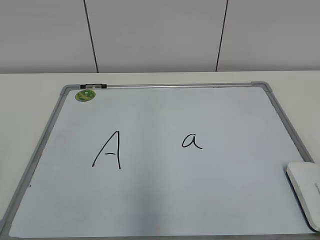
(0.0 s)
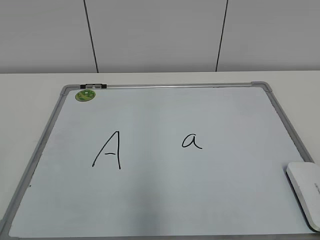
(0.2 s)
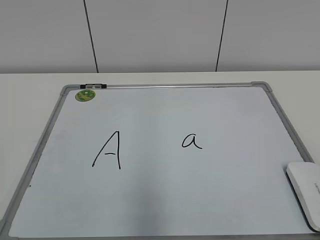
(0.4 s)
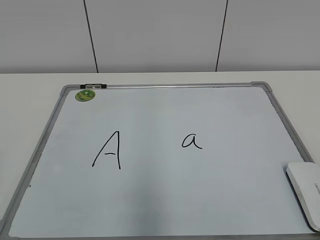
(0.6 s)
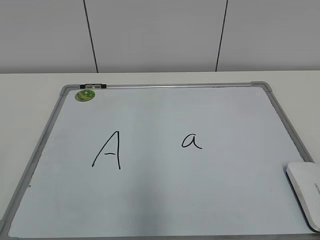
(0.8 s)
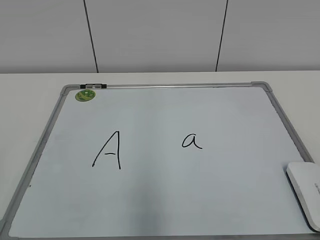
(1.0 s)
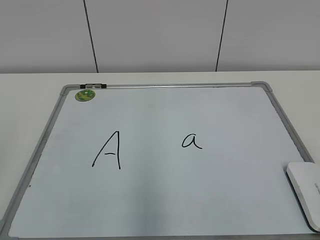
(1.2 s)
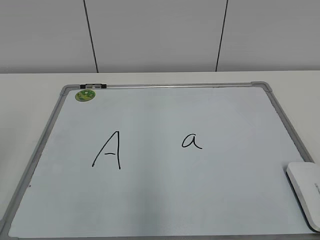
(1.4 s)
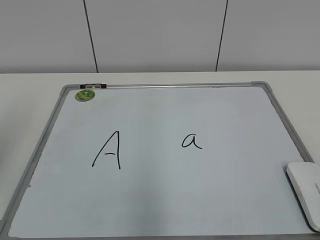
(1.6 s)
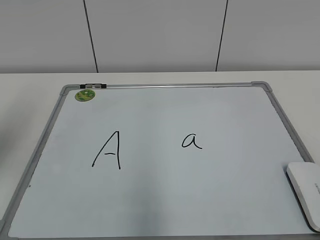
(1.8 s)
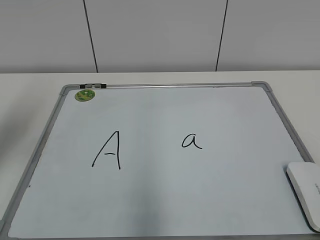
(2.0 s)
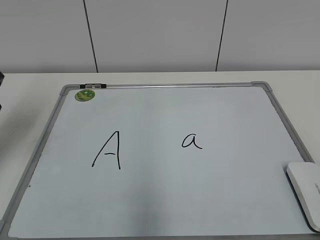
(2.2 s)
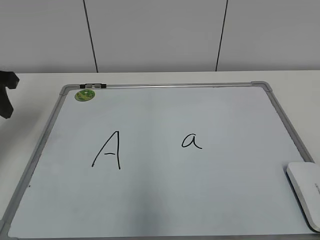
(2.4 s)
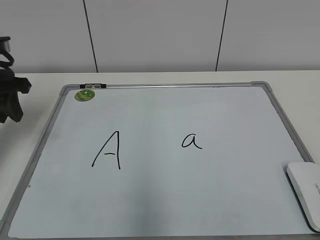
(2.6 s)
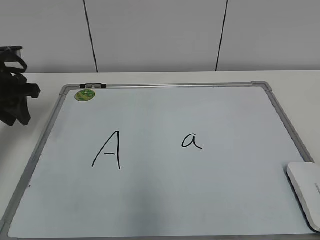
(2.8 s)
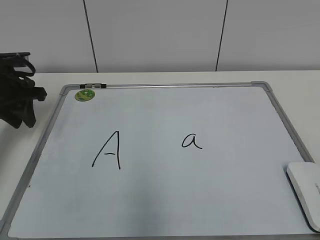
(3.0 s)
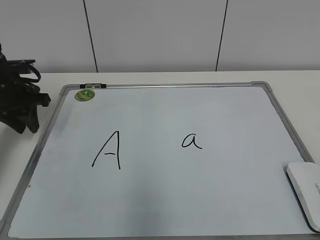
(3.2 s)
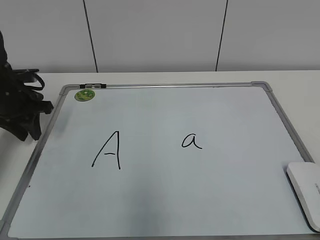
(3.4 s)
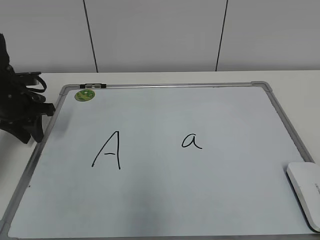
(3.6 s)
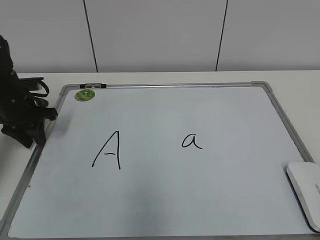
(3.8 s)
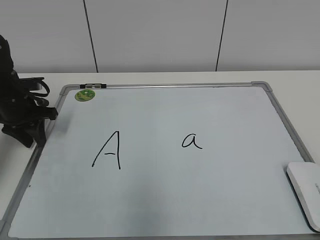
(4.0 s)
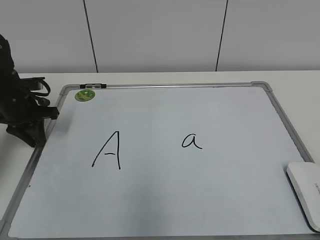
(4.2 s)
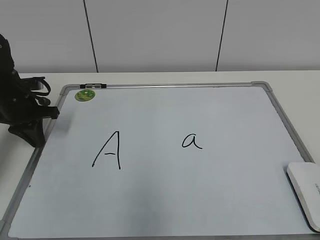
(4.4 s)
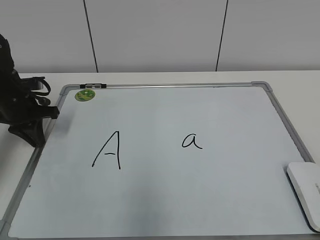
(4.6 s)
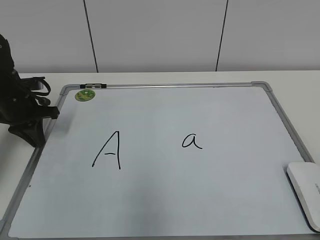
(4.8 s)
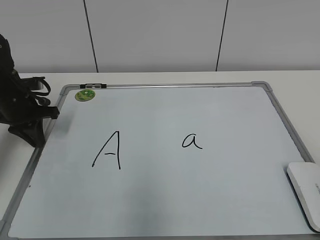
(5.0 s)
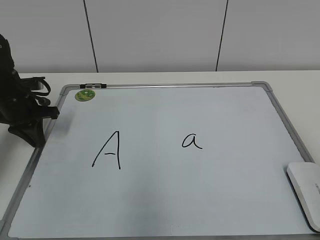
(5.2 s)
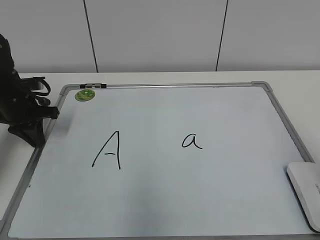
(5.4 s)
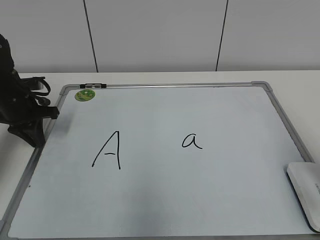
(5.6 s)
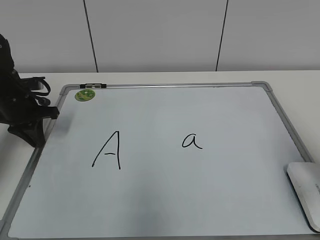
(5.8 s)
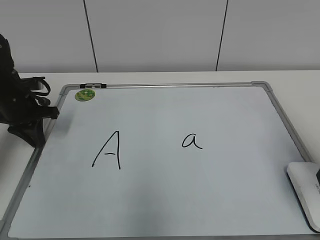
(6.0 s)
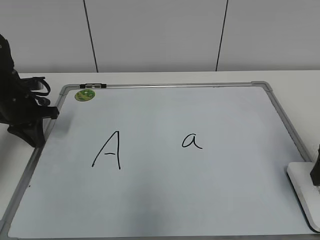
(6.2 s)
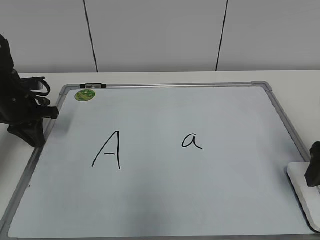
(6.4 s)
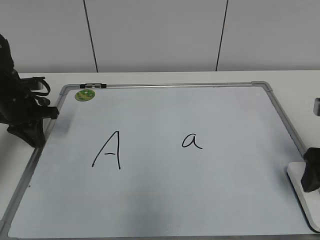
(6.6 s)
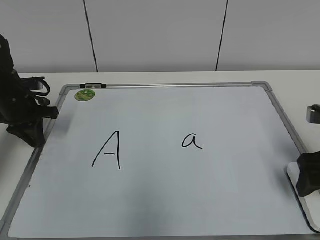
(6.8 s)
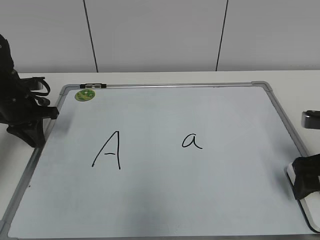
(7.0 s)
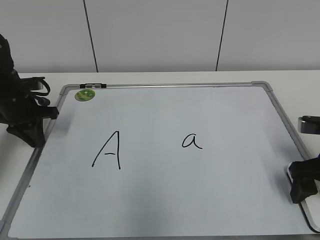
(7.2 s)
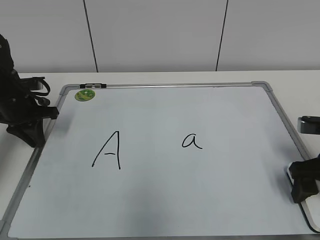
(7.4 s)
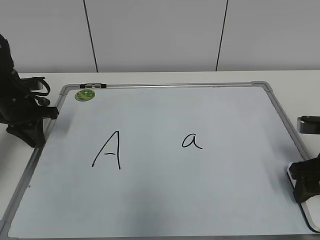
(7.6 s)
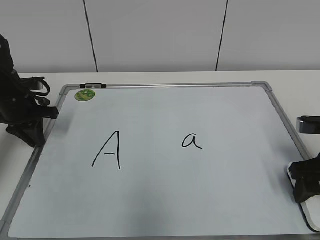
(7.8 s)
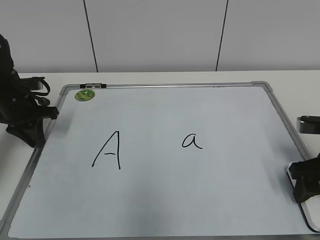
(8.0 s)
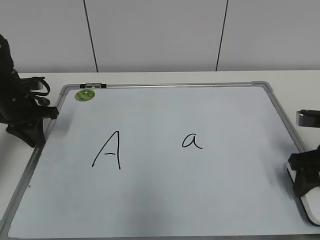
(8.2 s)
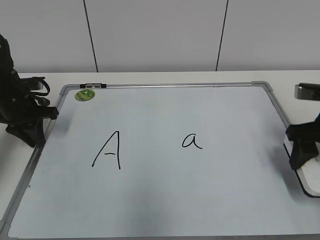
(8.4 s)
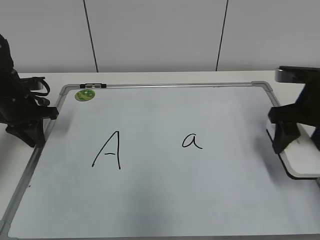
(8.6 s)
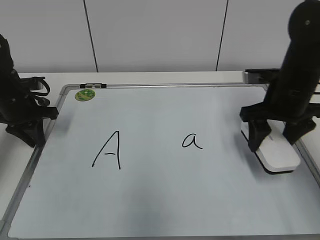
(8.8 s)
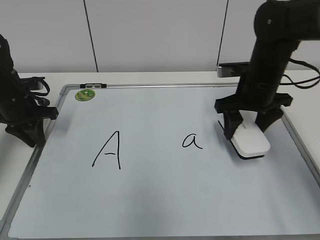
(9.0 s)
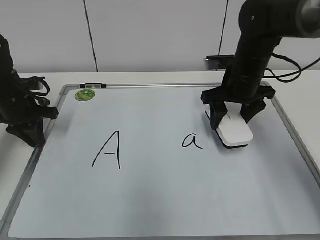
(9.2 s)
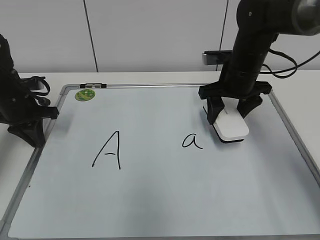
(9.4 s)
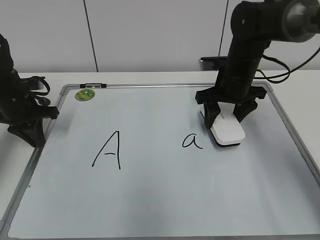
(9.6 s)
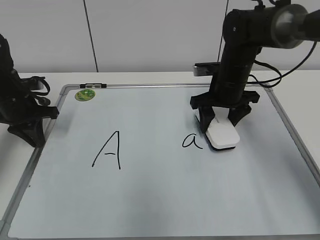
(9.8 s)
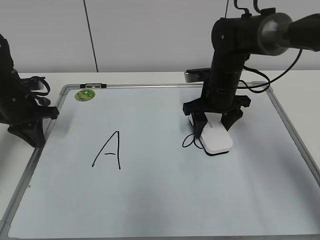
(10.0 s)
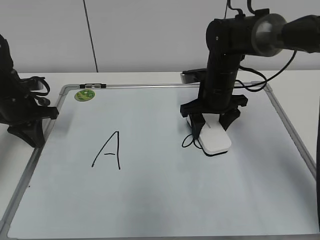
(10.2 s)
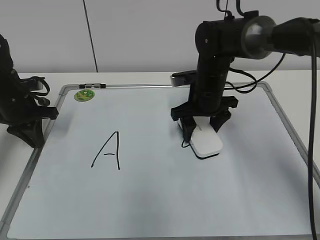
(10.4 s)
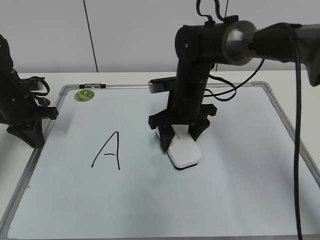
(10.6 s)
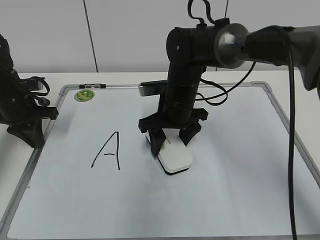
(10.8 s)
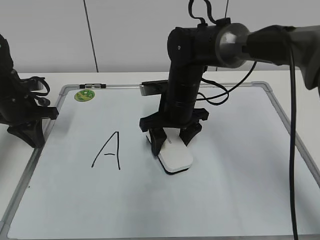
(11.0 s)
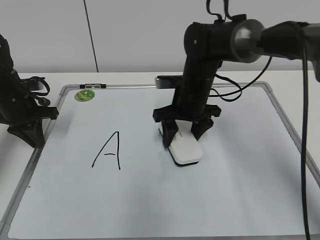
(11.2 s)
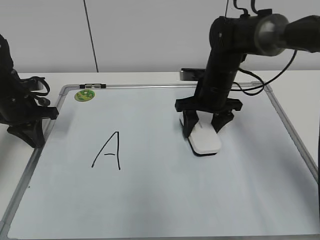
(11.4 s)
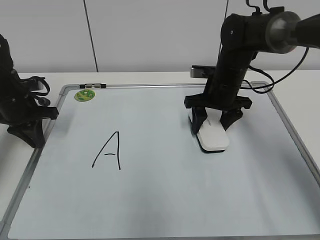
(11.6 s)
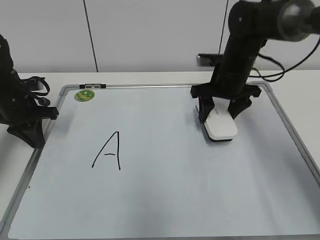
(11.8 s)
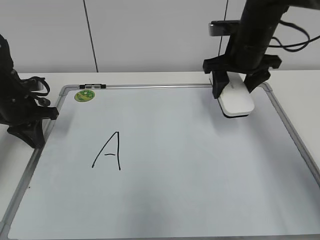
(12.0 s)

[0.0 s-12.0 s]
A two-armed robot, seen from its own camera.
Task of the whole recording: pick up the eraser on the blackboard and erase the letter "a".
Step, 0.0 to 5.2 s: Hold the drawing board steady with your left hand.
Step, 5.4 to 7.4 s: Grab the eraser with your right hand.
Step, 7.6 to 11.4 s: Erase the letter a with your right hand.
1.6 to 3.0 s: The left gripper moves forward and downward, some 25 cm.
3.0 to 4.4 s: The left gripper is displaced downward by about 5 cm, and closes its fingers.
4.4 to 6.0 s: The right gripper heads forward, covering about 20 cm, and opens up.
6.0 to 7.6 s: The right gripper travels downward and forward by some 10 cm, and closes.
7.6 to 9.0 s: The right gripper goes roughly 15 cm forward and to the left.
9.0 to 10.4 s: The right gripper heads to the left, covering roughly 10 cm.
10.4 to 12.0 s: The right gripper travels upward and to the right by roughly 10 cm.

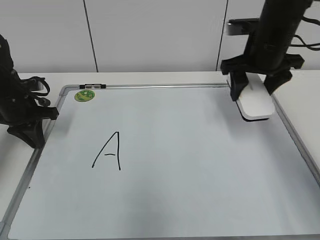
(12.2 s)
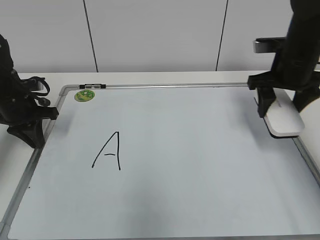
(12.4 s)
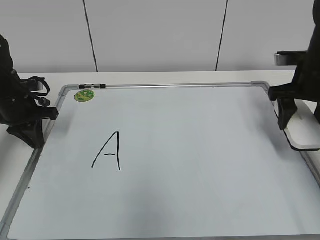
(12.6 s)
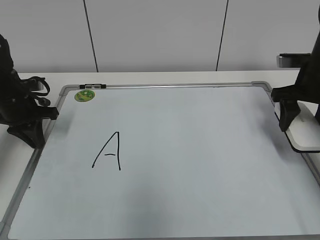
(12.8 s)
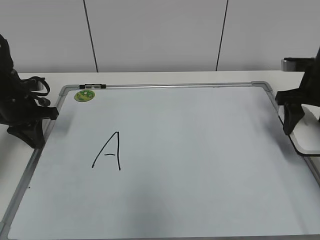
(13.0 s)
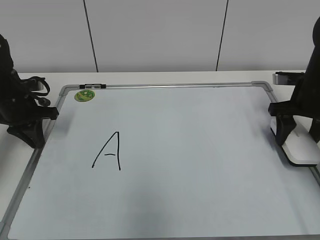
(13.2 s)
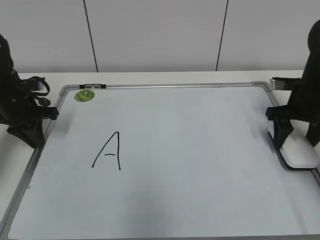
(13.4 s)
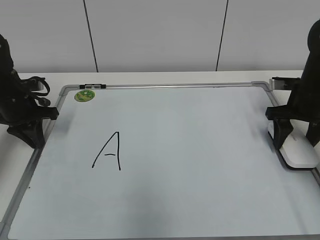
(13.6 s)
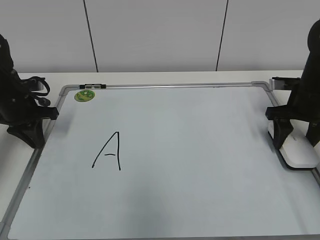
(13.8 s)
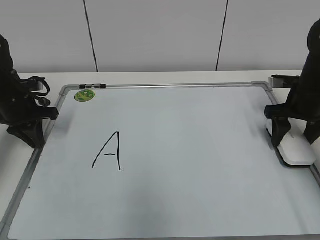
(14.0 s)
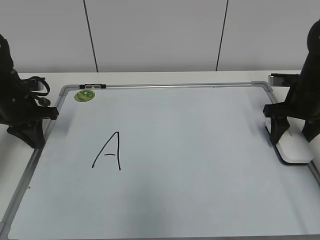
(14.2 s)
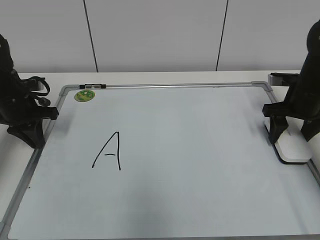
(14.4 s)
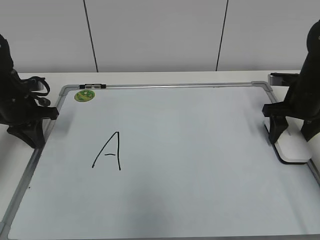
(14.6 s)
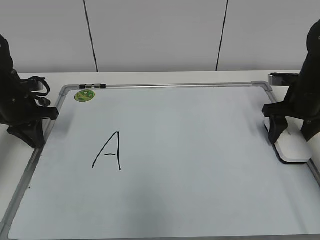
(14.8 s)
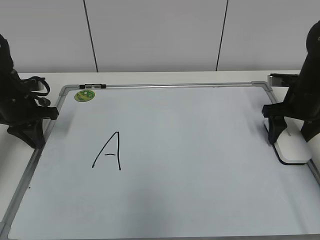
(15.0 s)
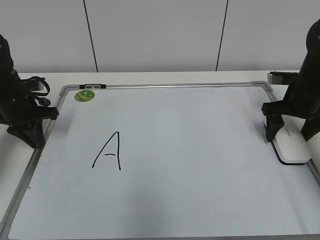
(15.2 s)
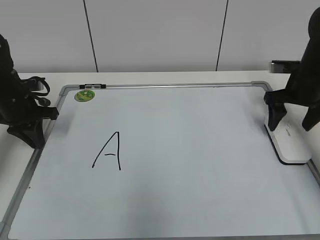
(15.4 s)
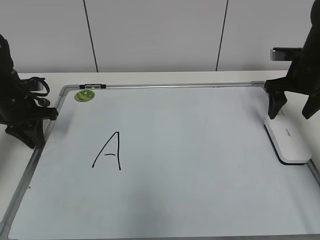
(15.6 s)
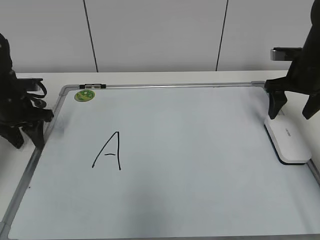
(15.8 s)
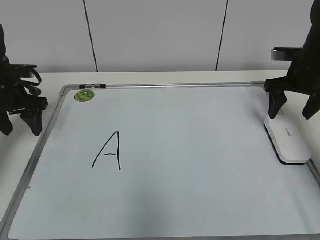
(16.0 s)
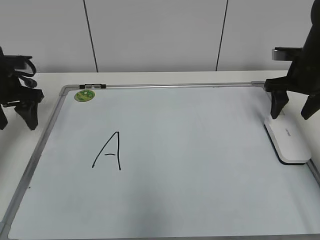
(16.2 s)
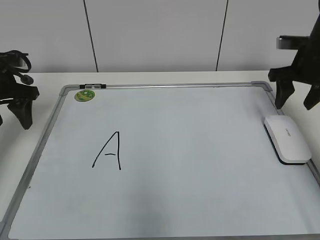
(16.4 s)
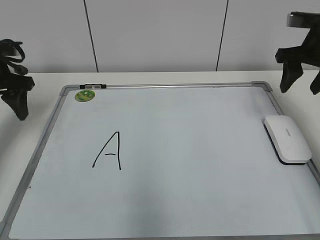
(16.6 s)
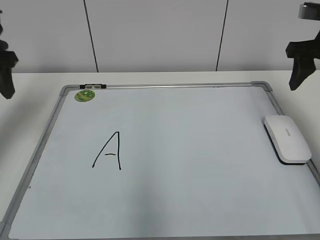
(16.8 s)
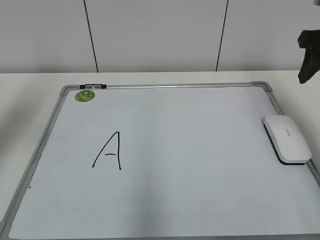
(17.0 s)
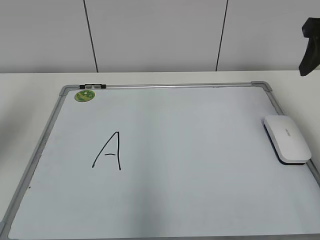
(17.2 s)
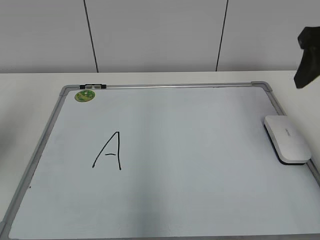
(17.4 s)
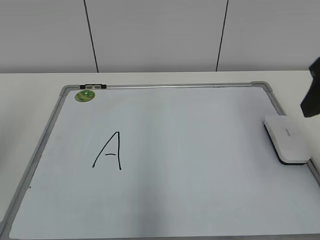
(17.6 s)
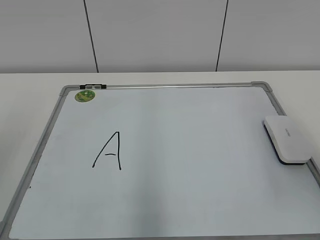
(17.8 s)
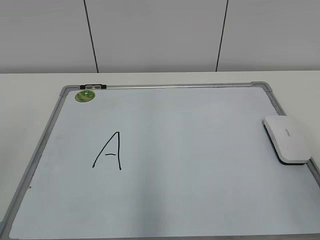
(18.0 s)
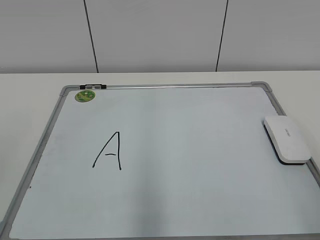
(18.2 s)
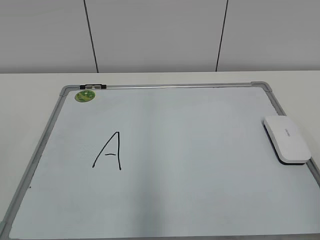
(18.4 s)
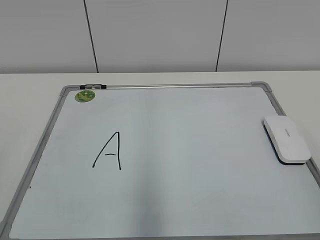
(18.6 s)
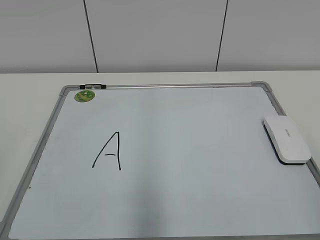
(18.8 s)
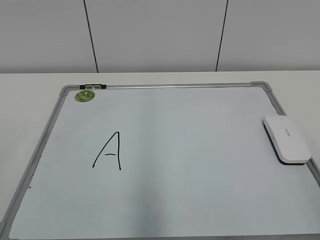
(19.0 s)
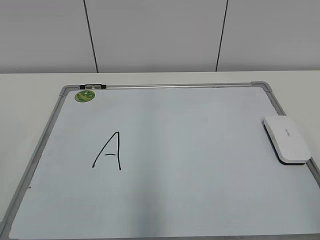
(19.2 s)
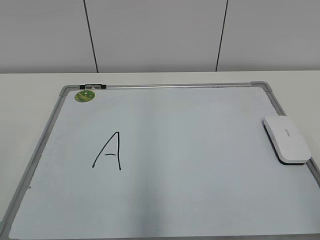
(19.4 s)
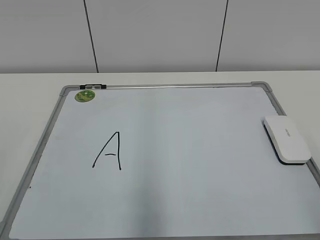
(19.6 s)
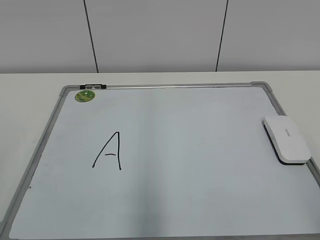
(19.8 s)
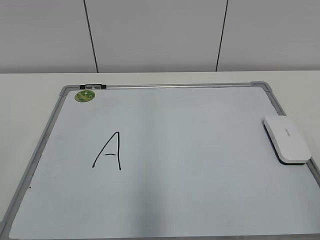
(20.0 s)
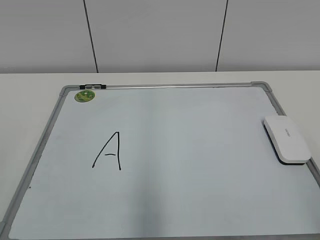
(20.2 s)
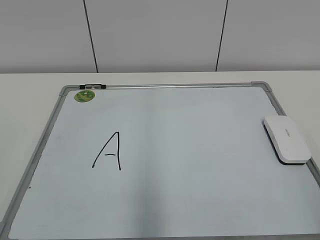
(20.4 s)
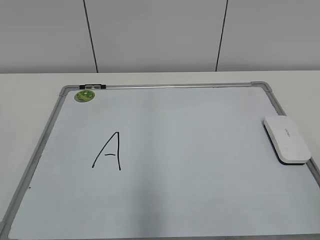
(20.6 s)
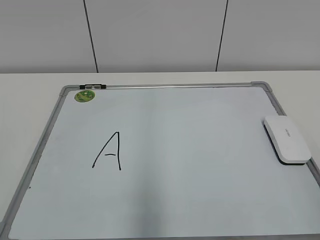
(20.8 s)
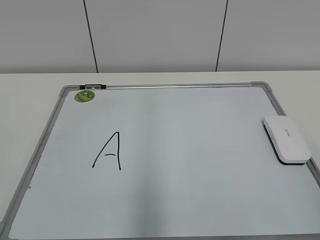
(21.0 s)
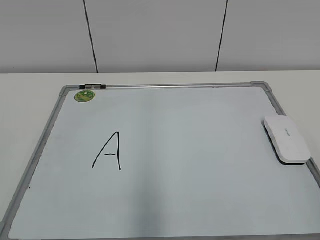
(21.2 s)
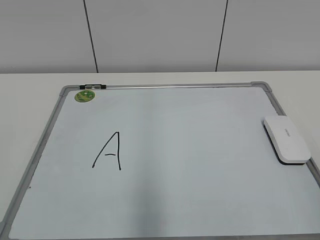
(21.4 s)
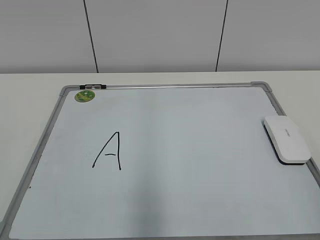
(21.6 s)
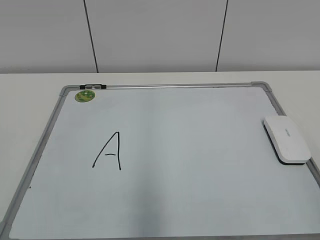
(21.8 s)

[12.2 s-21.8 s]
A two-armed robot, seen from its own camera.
Task of the whole recording: pick up the eraser on the blackboard and erase the letter "a".
Step, 12.2 to 15.2 s: Put down the eraser with your right hand.
12.2 to 13.8 s: The right gripper shifts about 15 cm to the right and downward.
13.8 to 15.4 s: The right gripper opens up.
15.4 to 17.0 s: The two grippers go some 15 cm upward and backward. The left gripper opens its fingers. The right gripper closes.
17.0 to 18.6 s: The grippers both shift backward by approximately 35 cm.
